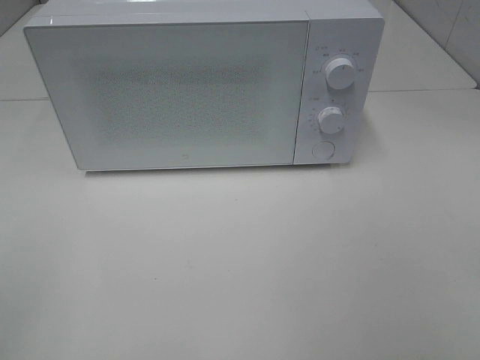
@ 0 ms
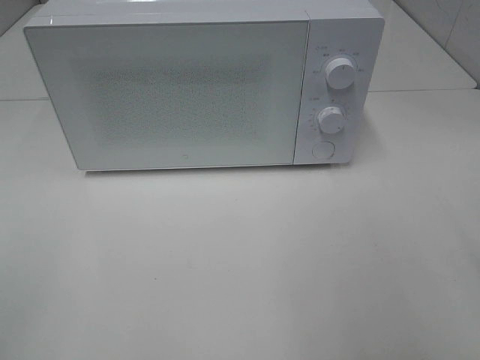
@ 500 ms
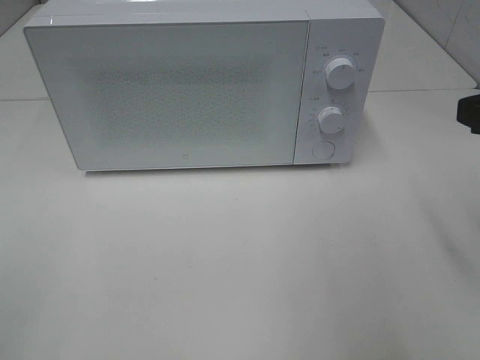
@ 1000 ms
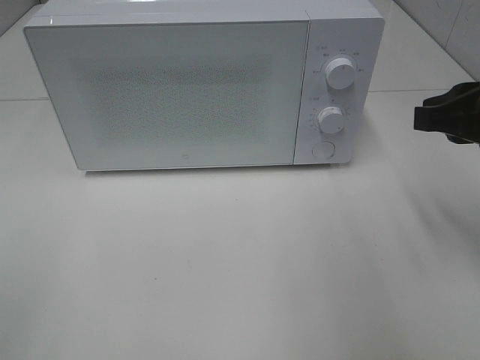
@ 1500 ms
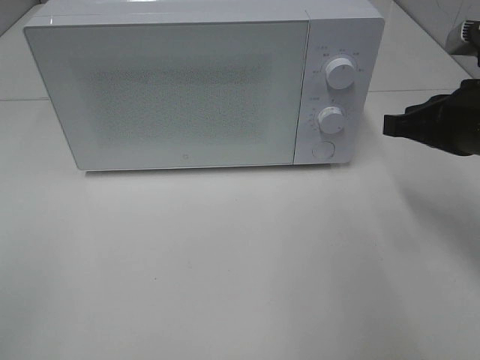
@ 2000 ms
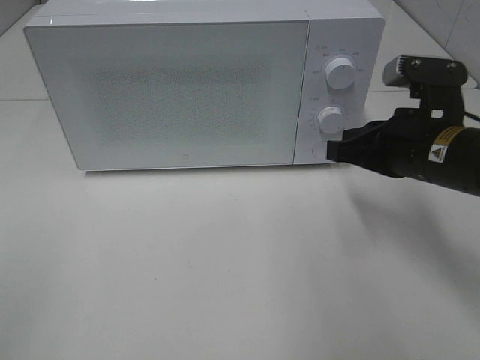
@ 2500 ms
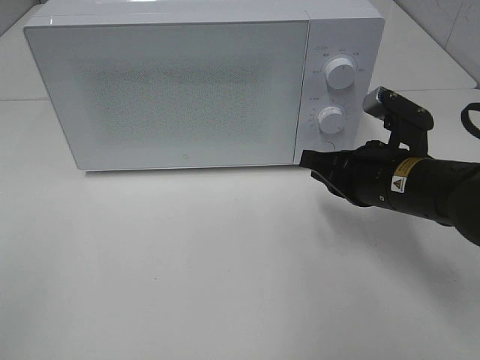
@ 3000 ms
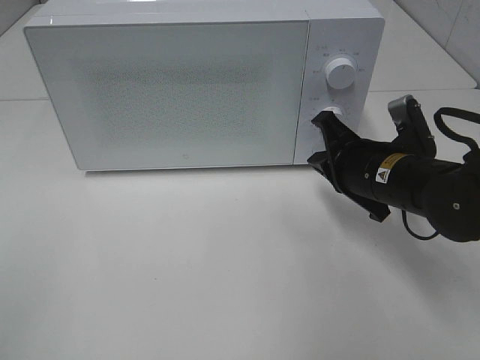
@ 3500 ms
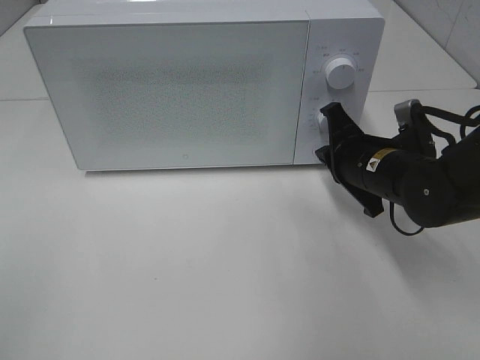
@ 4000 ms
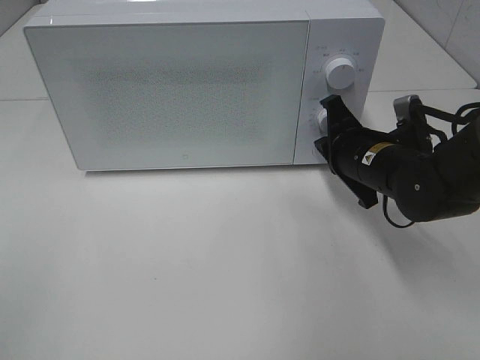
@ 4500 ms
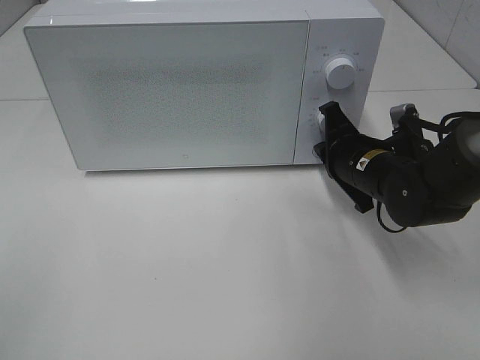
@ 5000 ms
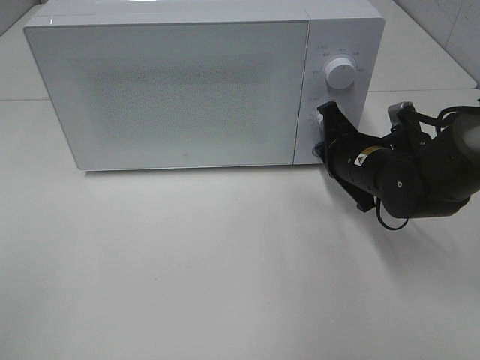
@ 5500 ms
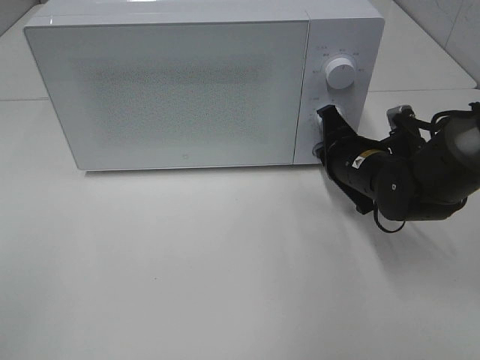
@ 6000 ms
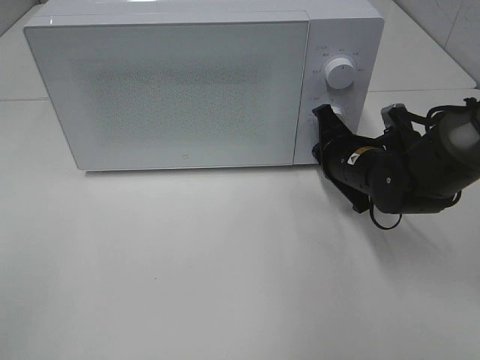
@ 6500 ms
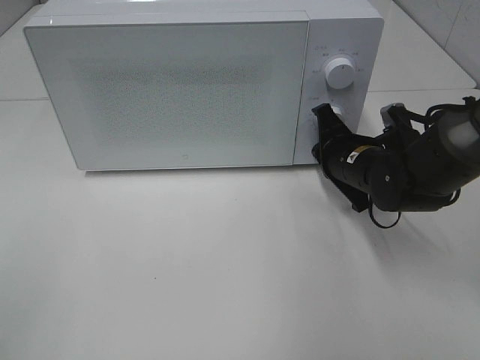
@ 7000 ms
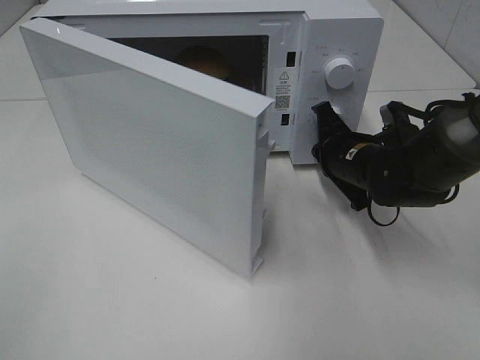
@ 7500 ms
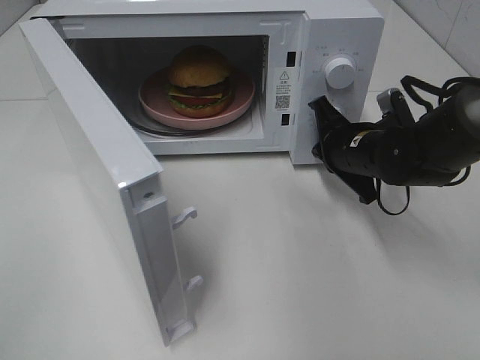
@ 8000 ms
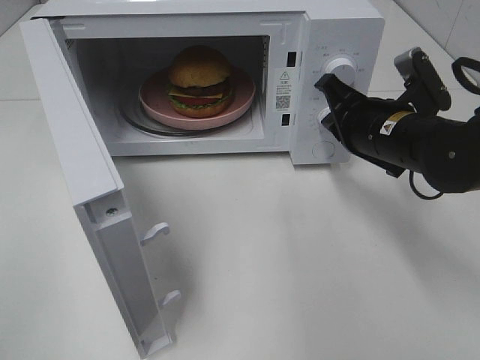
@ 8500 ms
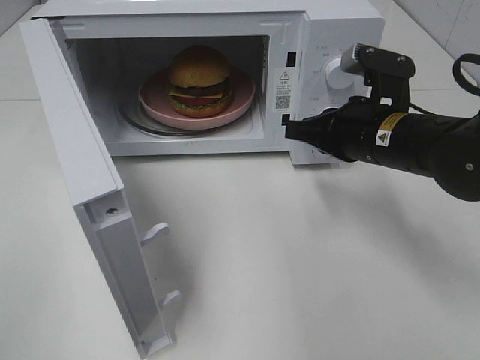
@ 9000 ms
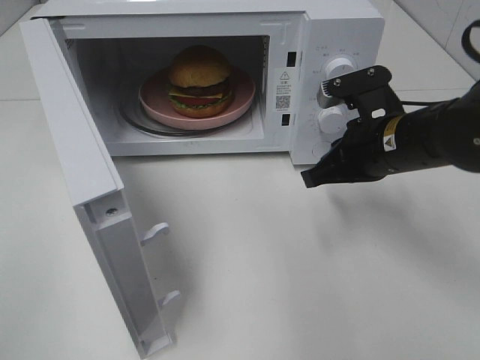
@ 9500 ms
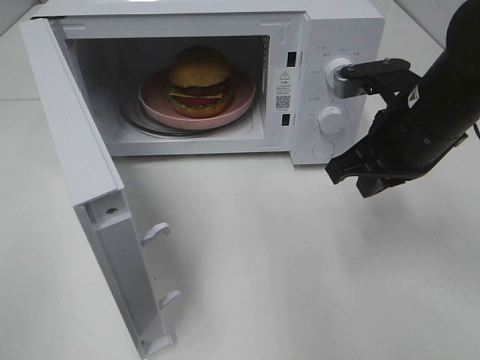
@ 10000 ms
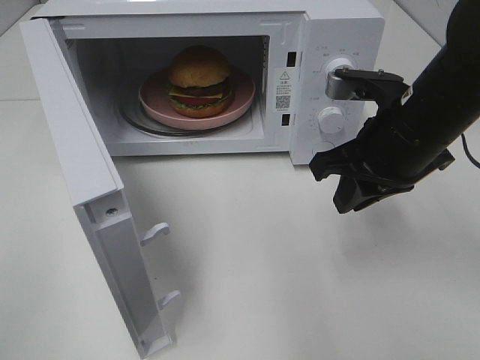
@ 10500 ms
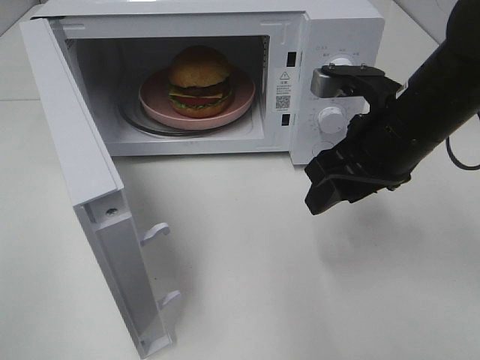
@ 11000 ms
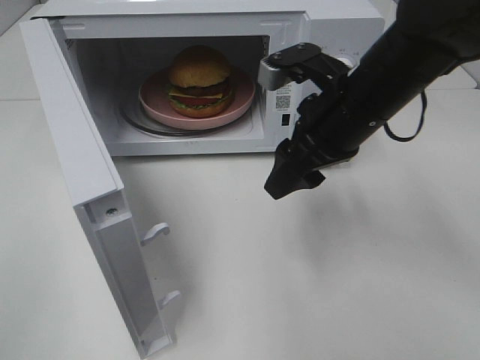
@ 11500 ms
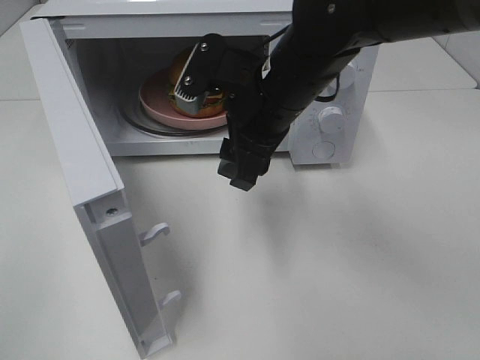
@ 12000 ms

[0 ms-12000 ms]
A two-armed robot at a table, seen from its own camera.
Task of the whole recording: Heat the burger.
Step, 0 ms to 8000 ms: Right hand: press the switch.
0 ms to 2000 ms: The right gripper shifts roughly 25 cm forward, and closes up.
2000 ms to 4000 ms: The right gripper shifts about 15 cm downward, to the left and forward.
4000 ms to 6000 ms: The grippers stay close to where they were, moving slightly.
8000 ms to 10000 ms: The right gripper heads upward and backward, covering approximately 10 cm.
10000 ms to 12000 ms: The right gripper shifts some 15 cm to the left, and opens.

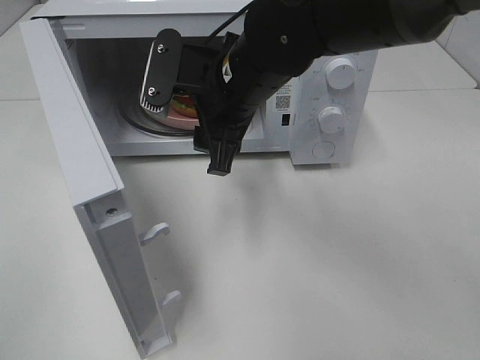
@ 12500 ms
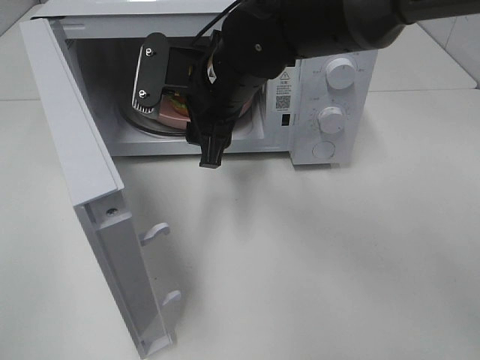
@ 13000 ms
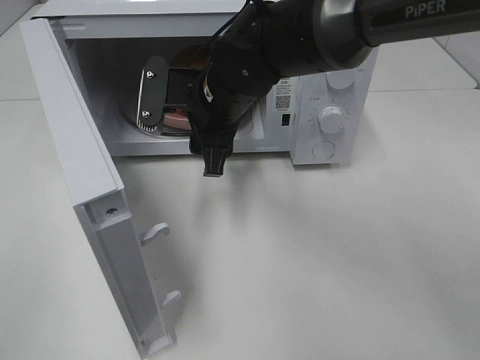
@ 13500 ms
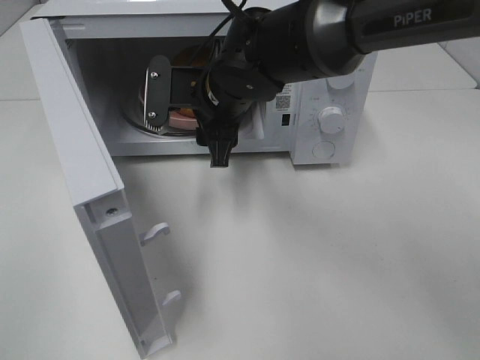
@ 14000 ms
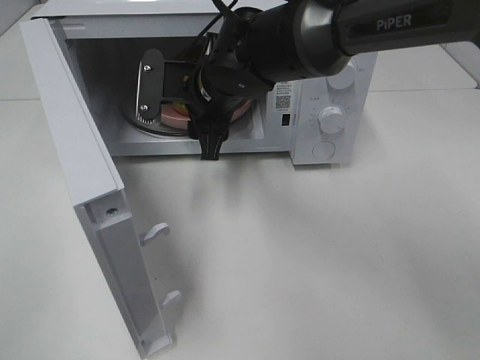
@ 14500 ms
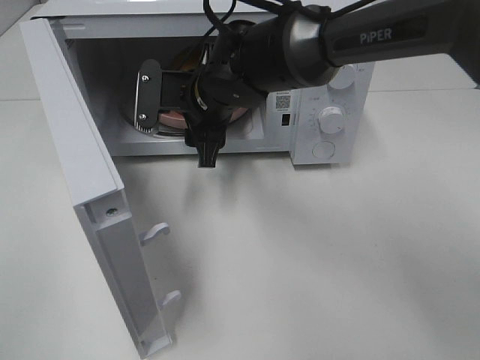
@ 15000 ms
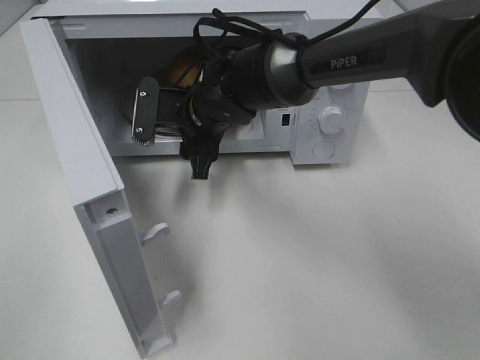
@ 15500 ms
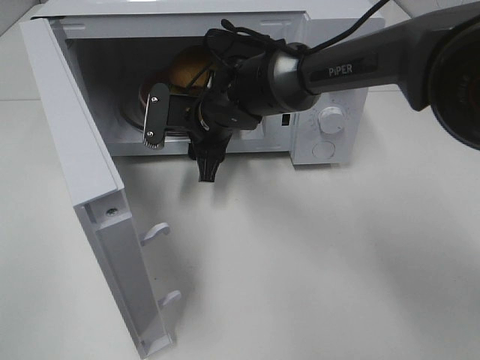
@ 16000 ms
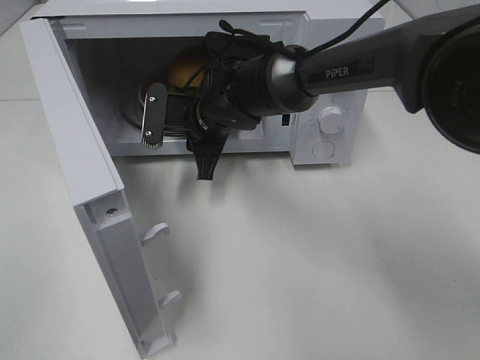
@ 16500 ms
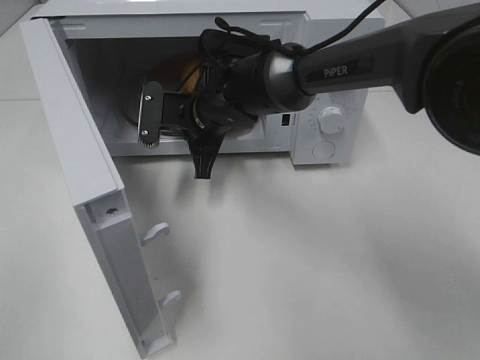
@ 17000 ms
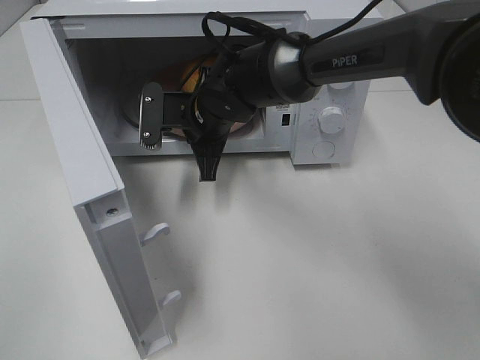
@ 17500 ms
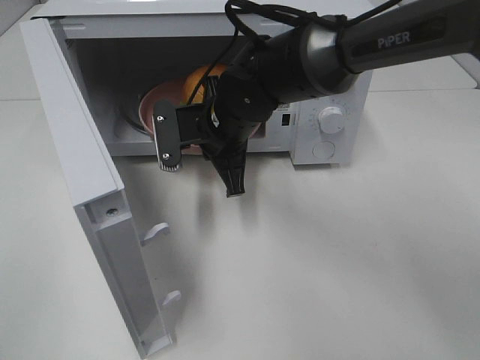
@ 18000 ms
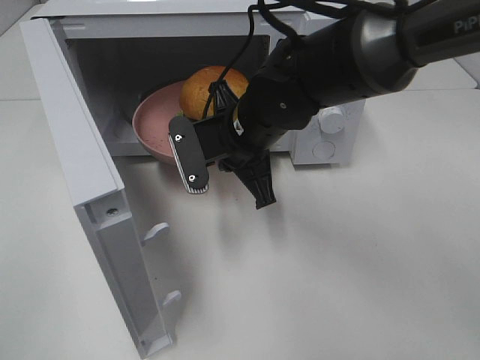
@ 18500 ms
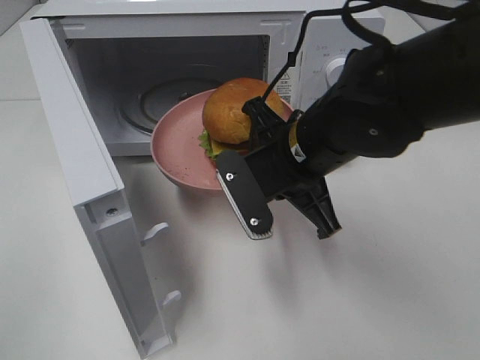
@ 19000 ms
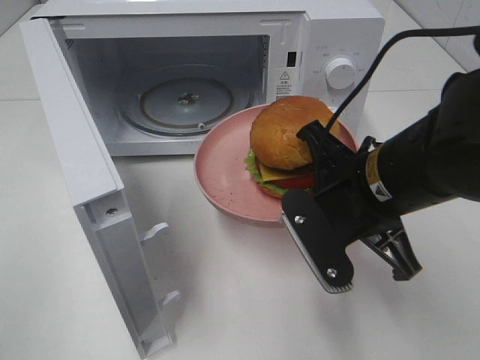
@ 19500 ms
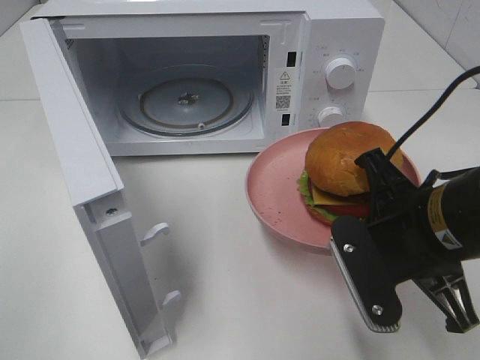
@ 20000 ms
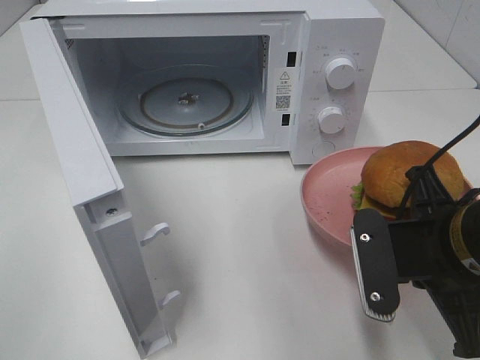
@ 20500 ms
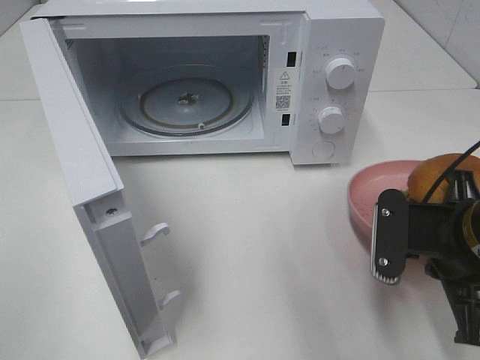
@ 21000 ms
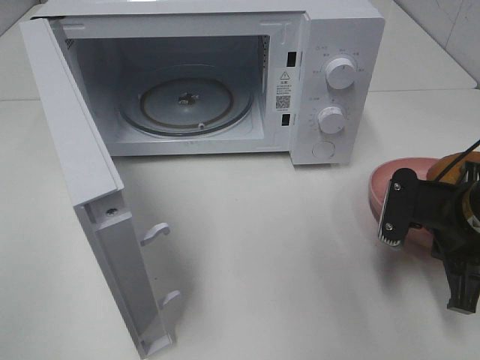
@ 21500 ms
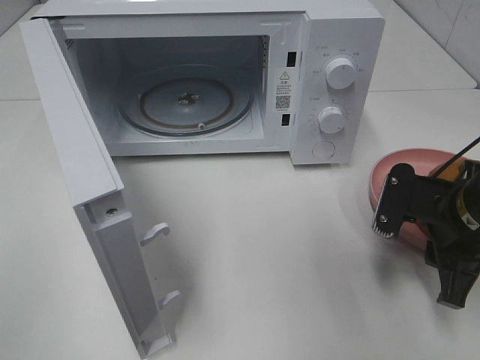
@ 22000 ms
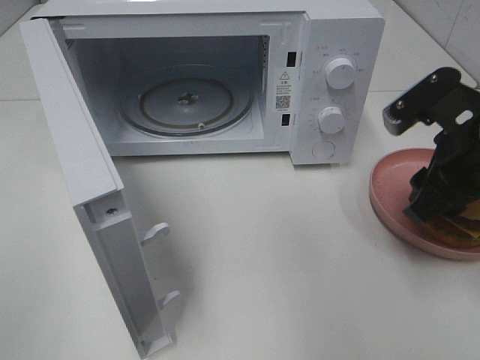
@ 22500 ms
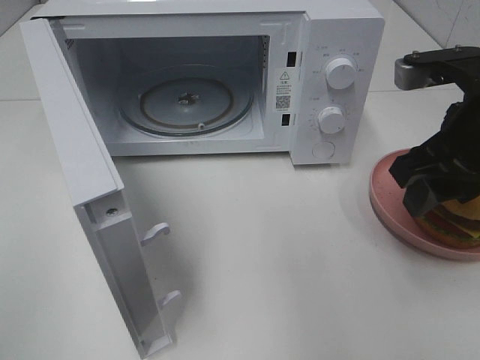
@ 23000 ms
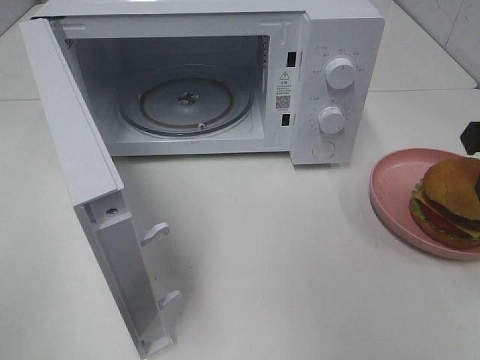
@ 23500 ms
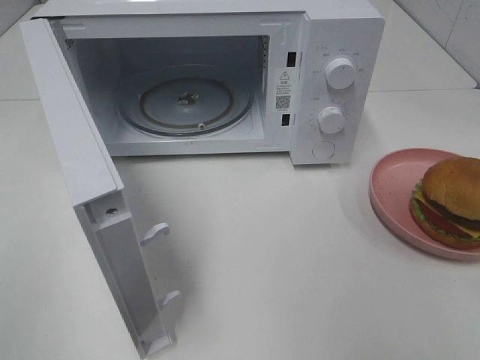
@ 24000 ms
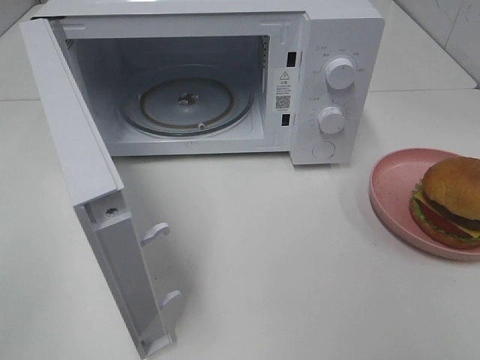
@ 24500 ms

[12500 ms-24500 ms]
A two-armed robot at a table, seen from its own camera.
Task of the whole recording: Heat the burger.
Step, 12500 ms to 17500 ms: Right hand: grab the plate with the hamburger.
Step, 18000 ms to 21500 ms: Right hand: place the plate on the table.
12500 ms to 14500 ms: The right gripper shifts about 5 cm forward.
14500 ms to 16500 ms: The right gripper moves downward, about 5 cm, and closes.
16500 ms to 18500 ms: The right gripper travels backward and to the right by roughly 10 cm, and closes its fingers.
18500 ms to 20500 ms: The right gripper shifts about 20 cm to the right and backward.
20500 ms to 22500 ms: The right gripper is displaced forward by some 10 cm, and opens up.
22500 ms to 24500 ms: The right gripper shifts approximately 20 cm backward and upward.

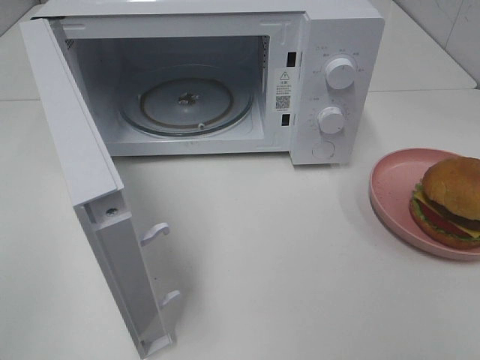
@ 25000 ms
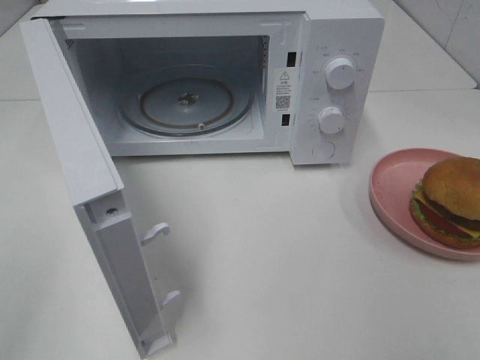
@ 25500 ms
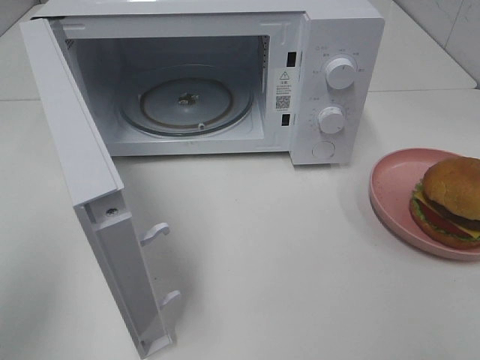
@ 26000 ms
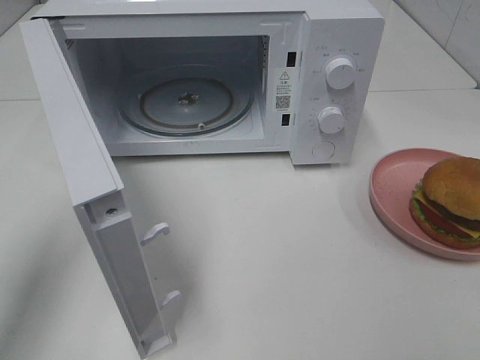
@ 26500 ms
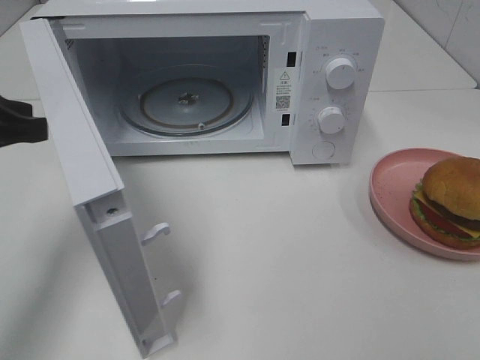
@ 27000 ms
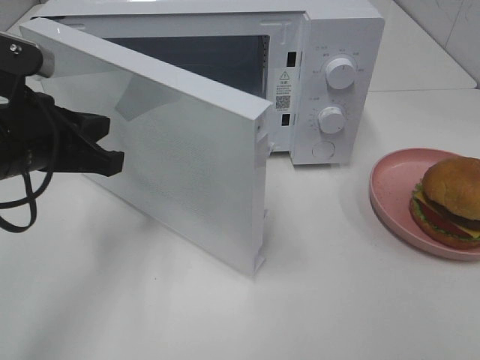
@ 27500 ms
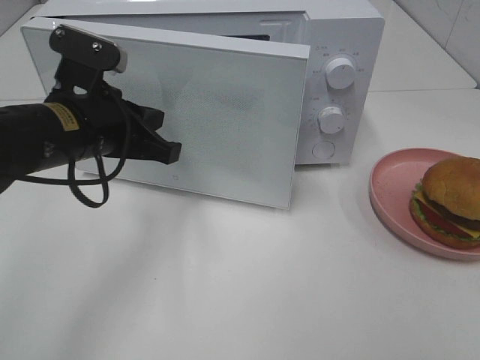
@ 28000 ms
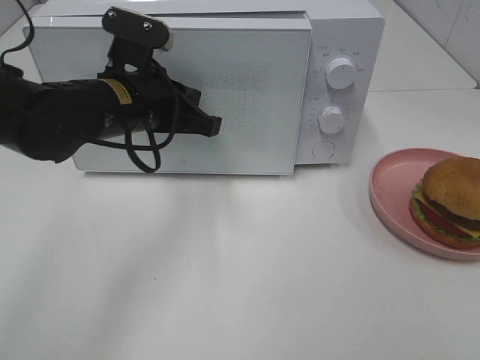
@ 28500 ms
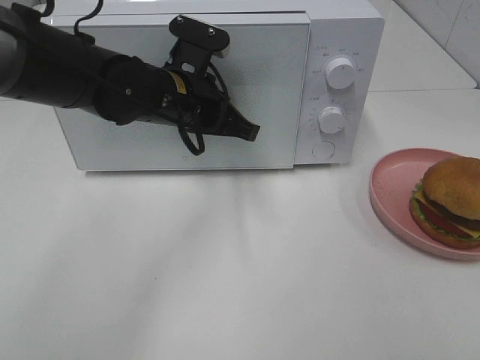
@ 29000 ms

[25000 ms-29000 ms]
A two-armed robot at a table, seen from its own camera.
Task of the whole recording: Heat the burger.
25000 ms to 27000 ms: The left gripper heads forward, covering about 25 cm.
27000 ms to 29000 ms: The left gripper is displaced to the right and forward by approximately 20 cm.
